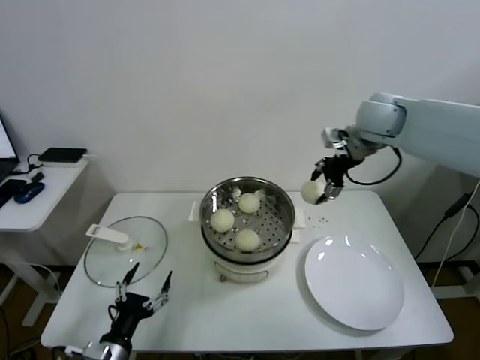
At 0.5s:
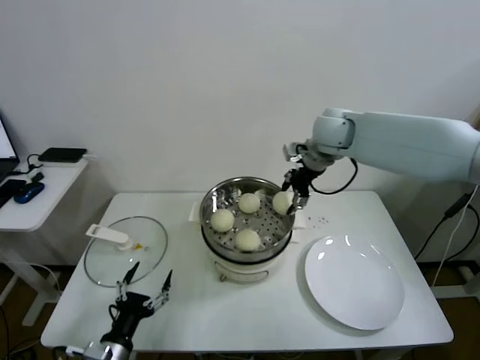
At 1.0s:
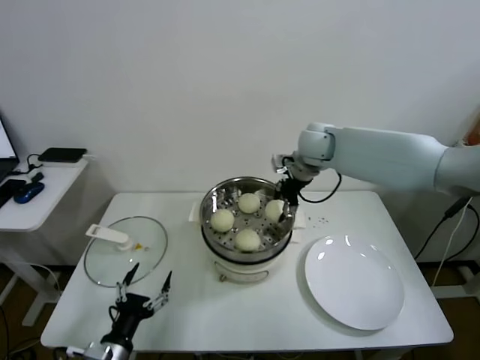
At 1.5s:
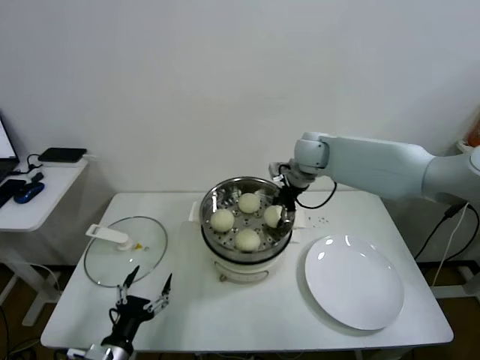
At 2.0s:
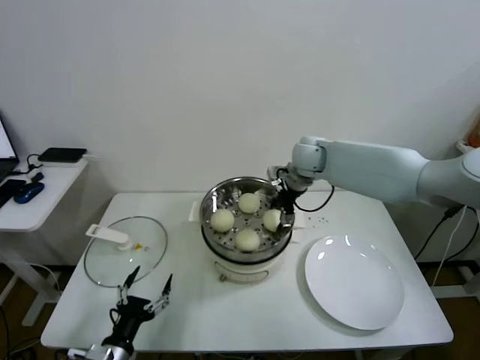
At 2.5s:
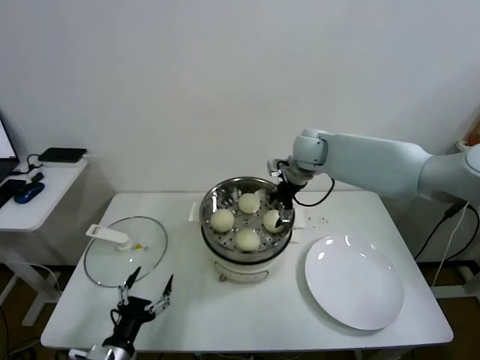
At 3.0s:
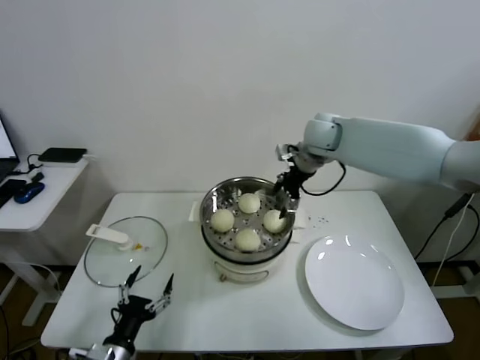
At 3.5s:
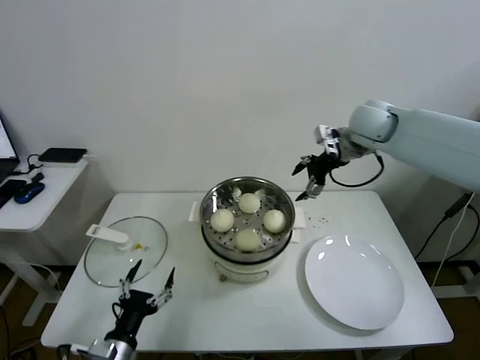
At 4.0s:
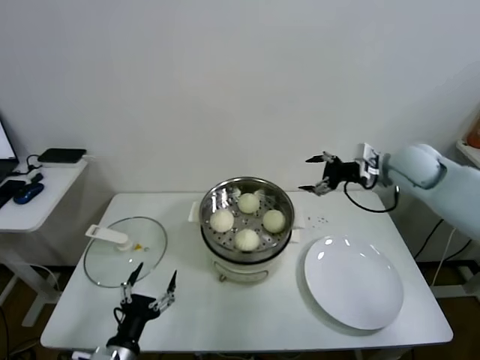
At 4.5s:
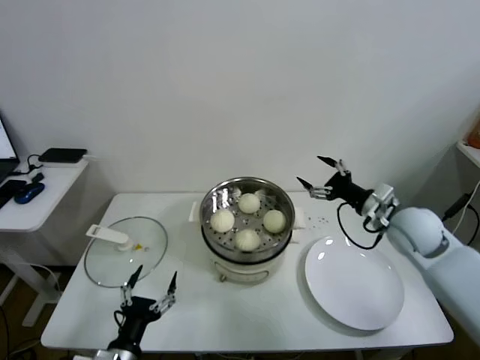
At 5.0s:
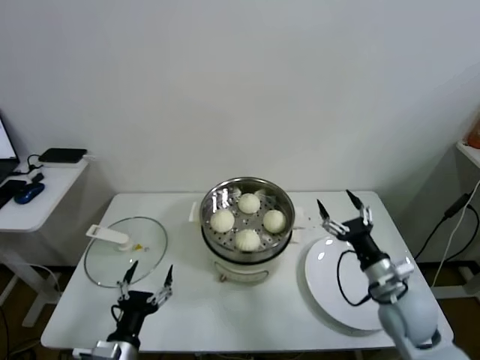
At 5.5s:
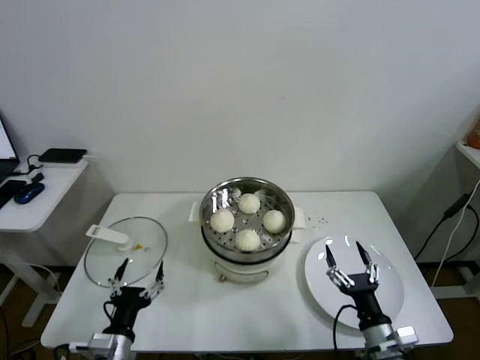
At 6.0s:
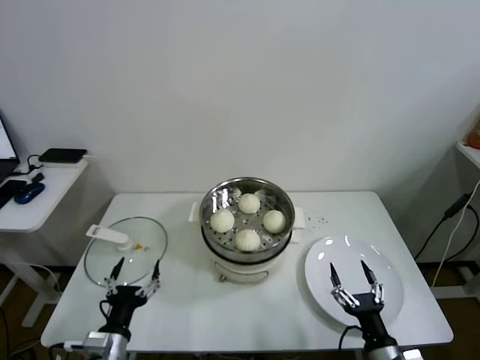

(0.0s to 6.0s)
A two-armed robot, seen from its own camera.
Task of the whole recording: take steamed baozi put them in steamer.
Step, 0.0s - 2.0s: Place the baozi on the steamer with right gripper.
0.0s - 2.0s: The right gripper shifts about 15 cm to the left and downward.
2.0s - 4.0s: The right gripper heads to the right and backward, covering some 20 cm, and opens.
4.0s - 6.0s: The right gripper moves backward and downward, about 50 cm.

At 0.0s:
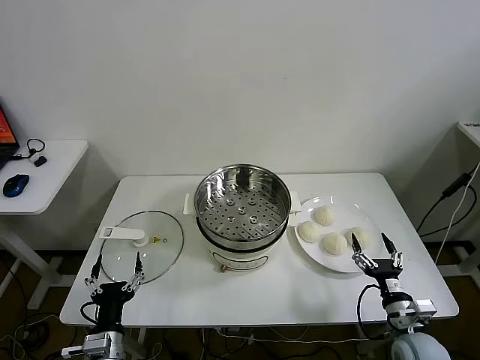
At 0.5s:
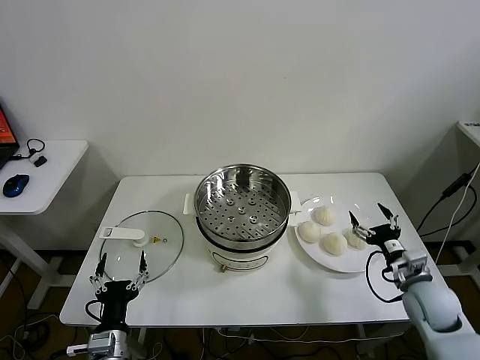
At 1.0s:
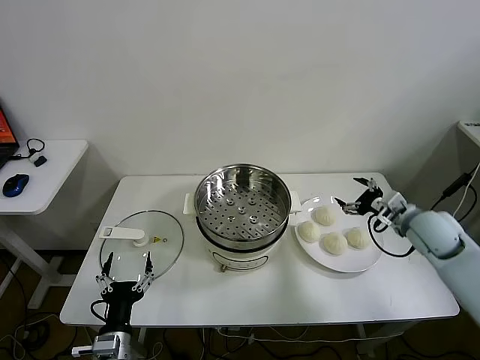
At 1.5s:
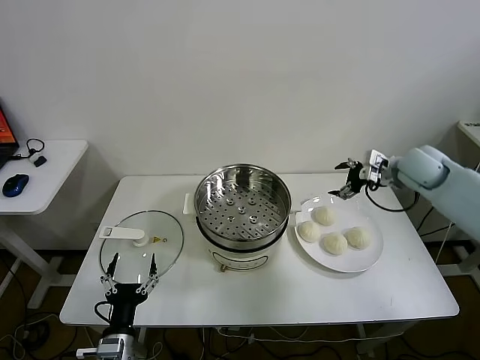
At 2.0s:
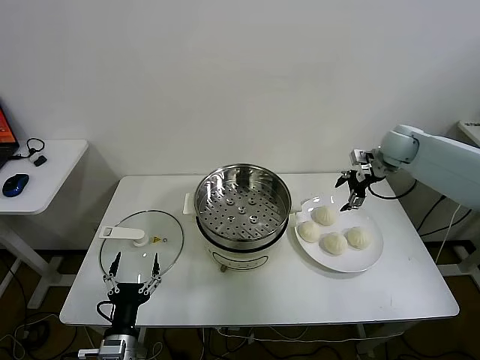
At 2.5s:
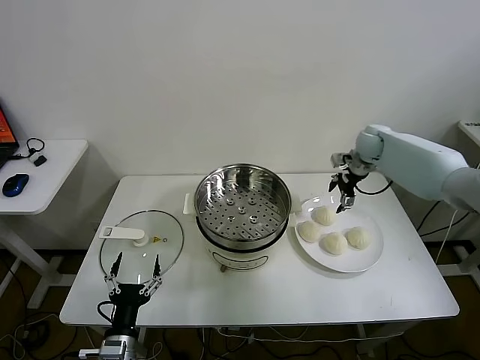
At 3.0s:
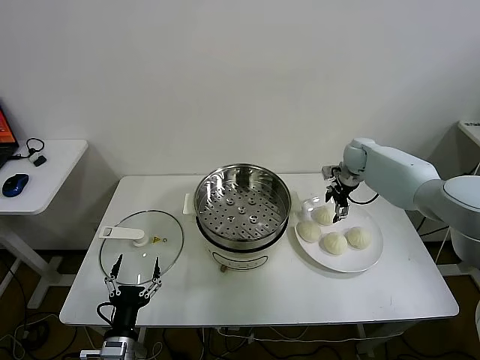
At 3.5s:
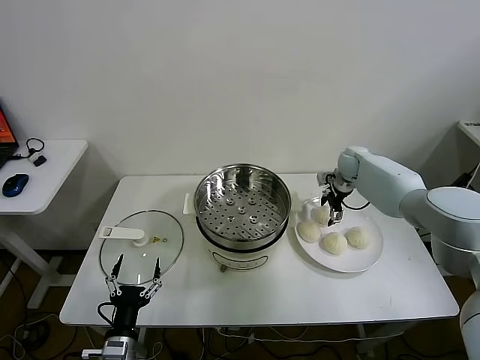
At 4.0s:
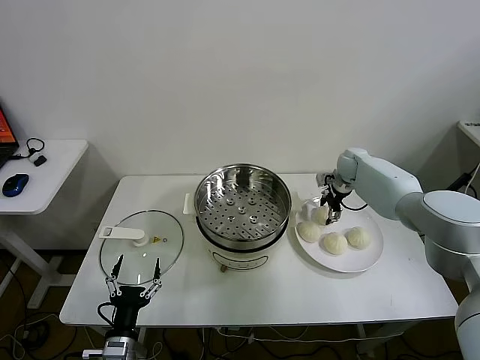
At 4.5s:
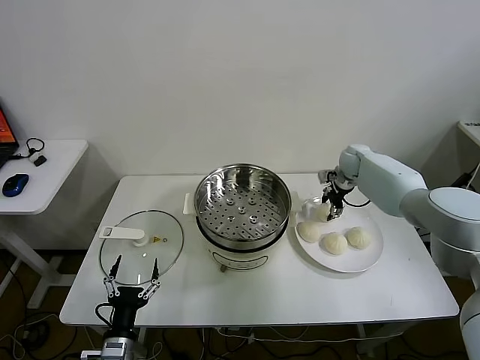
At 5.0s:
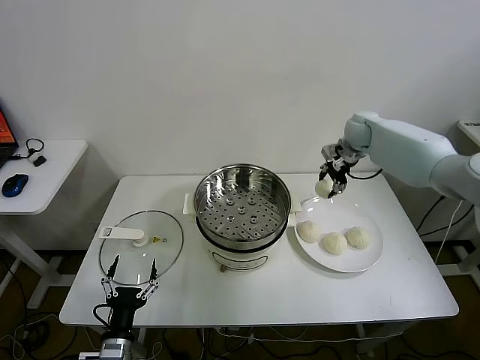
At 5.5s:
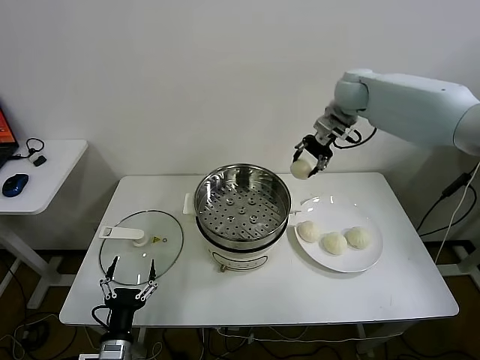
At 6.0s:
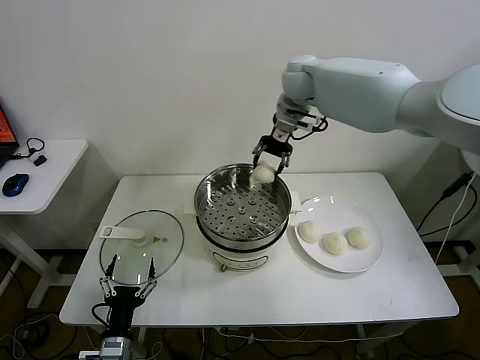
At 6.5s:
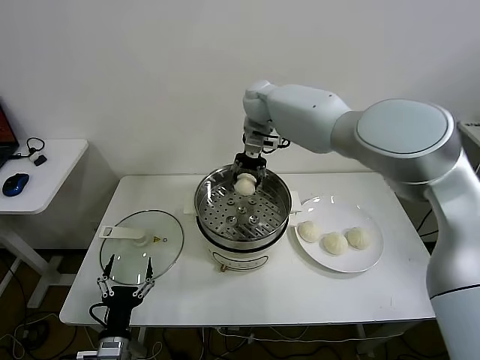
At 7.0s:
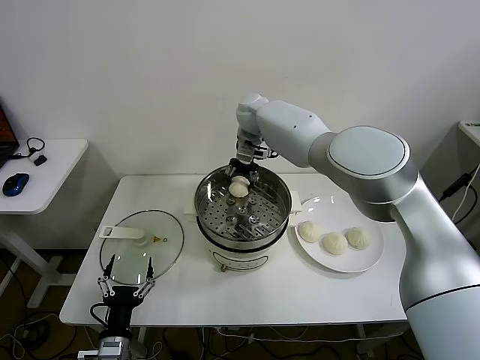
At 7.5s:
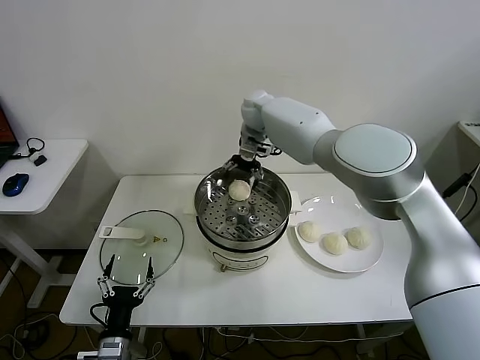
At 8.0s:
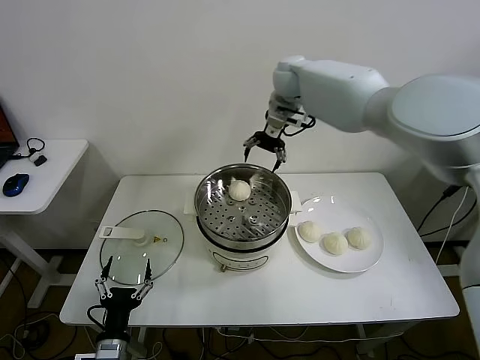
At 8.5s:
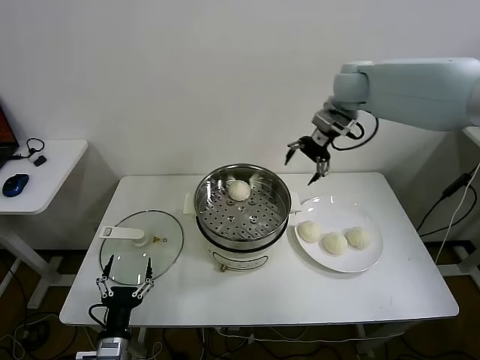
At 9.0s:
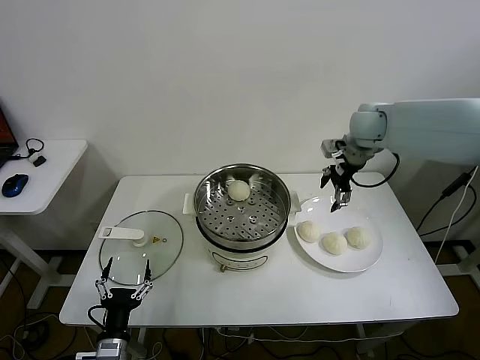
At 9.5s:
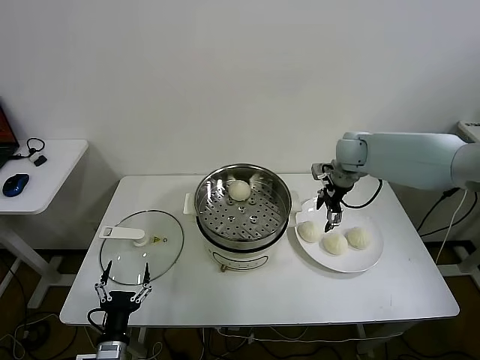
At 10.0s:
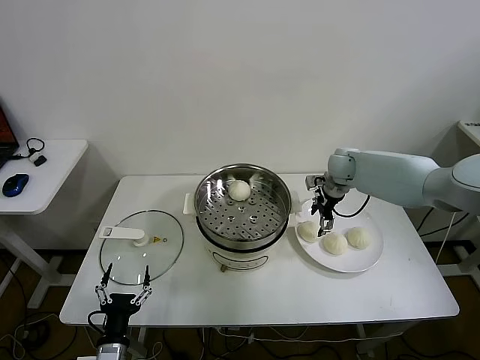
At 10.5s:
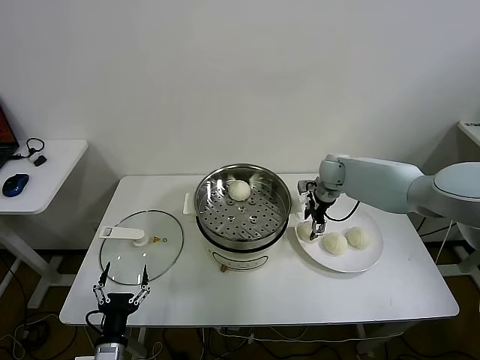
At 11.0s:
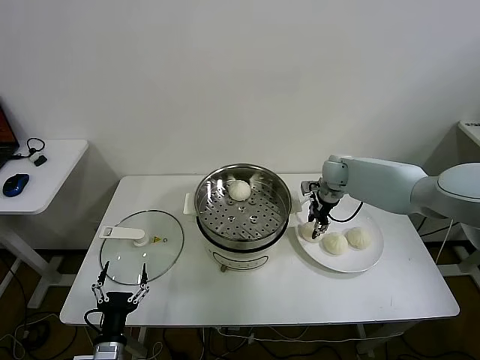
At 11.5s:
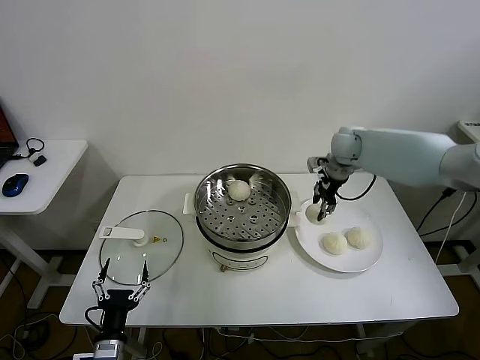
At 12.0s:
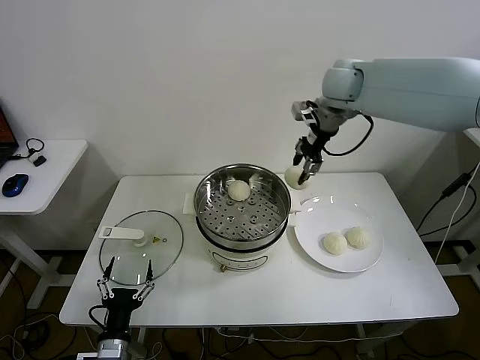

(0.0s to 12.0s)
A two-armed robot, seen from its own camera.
Task of the whole recording: take steamed baozi put them in steamer.
Step, 0.0s - 4.0s: Grasp the baozi in the plate with right gripper.
Step, 4.5s - 7.5s: Place the baozi on the steamer with right gripper.
Step, 8.0s - 10.5s: Grasp the baozi in the plate with right gripper.
2.0s - 4.0s: The right gripper is displaced downward and to the left by about 15 cm, and closes up.
4.0s - 6.0s: The right gripper heads upward and to the left, covering about 35 cm.
6.0s - 8.0s: The right gripper travels downward and back again, about 10 cm each way, and opens its fingers.
8.0s - 10.0s: The right gripper travels downward and to the right by some 25 cm.
10.0s - 12.0s: The right gripper moves upward, approximately 25 cm, and closes its fingers.

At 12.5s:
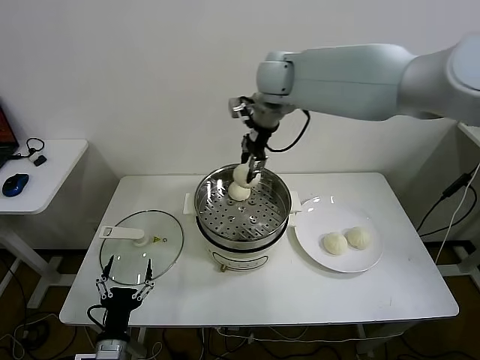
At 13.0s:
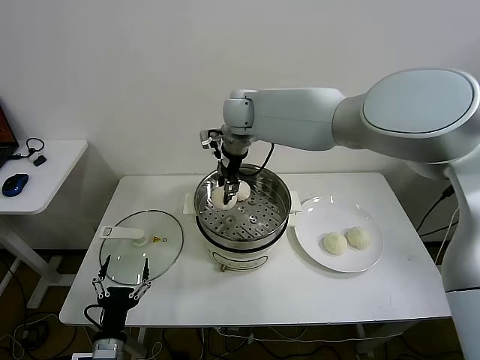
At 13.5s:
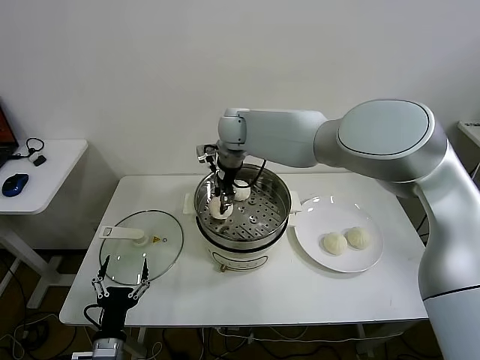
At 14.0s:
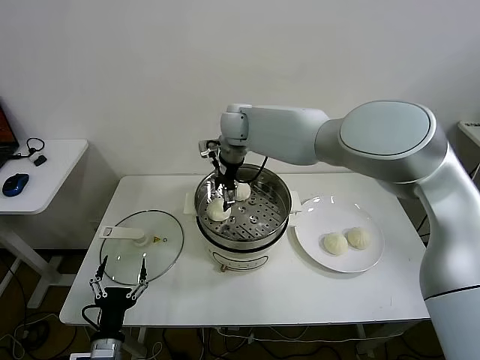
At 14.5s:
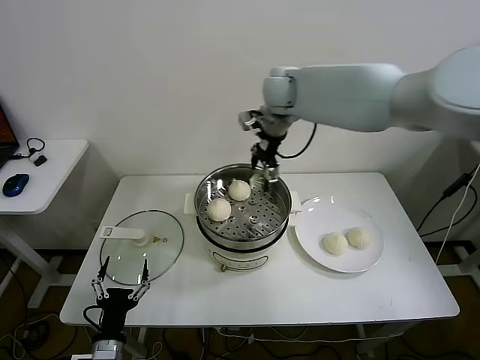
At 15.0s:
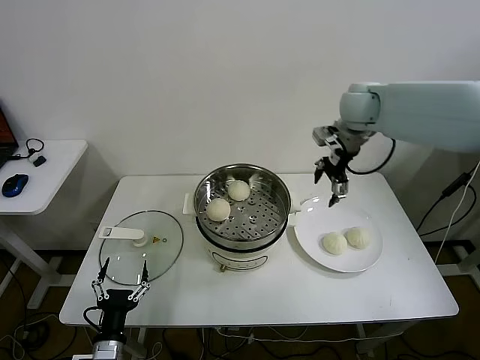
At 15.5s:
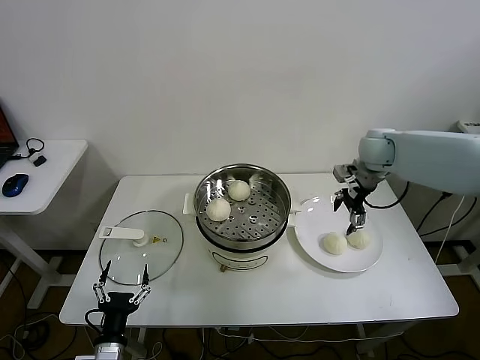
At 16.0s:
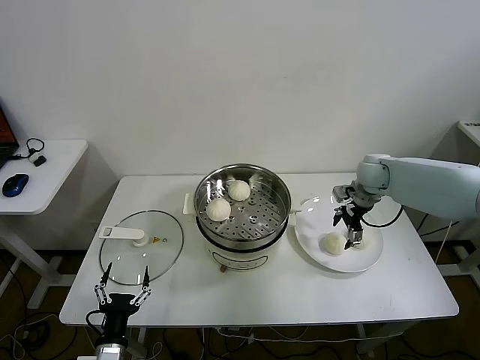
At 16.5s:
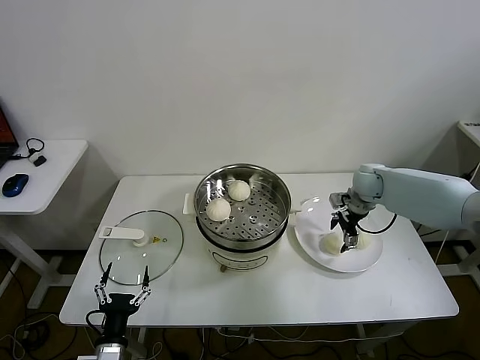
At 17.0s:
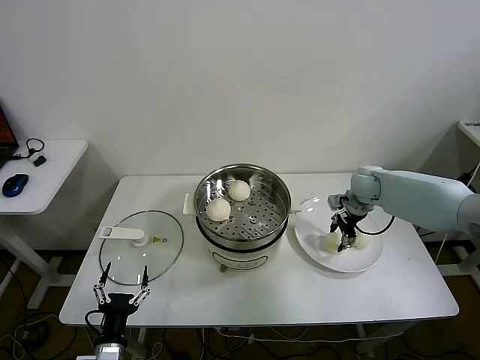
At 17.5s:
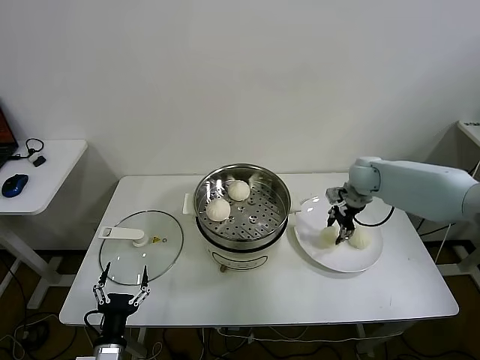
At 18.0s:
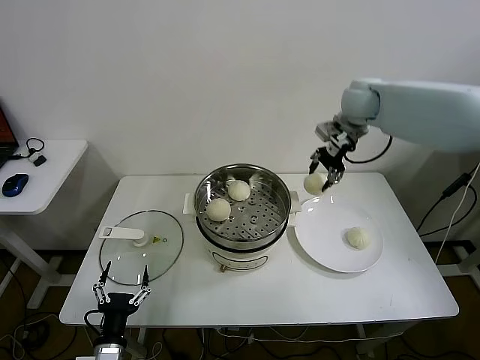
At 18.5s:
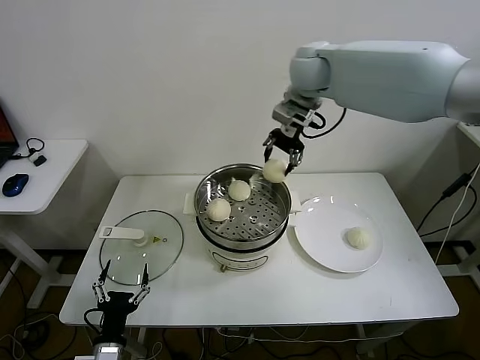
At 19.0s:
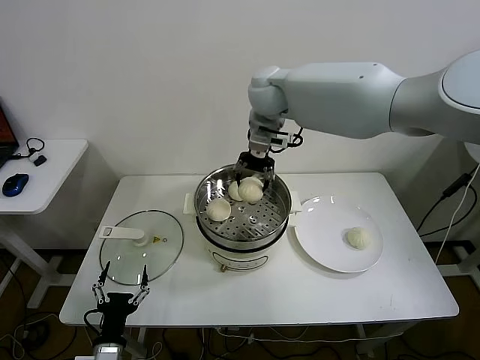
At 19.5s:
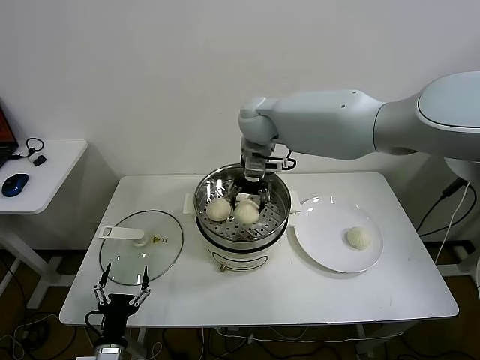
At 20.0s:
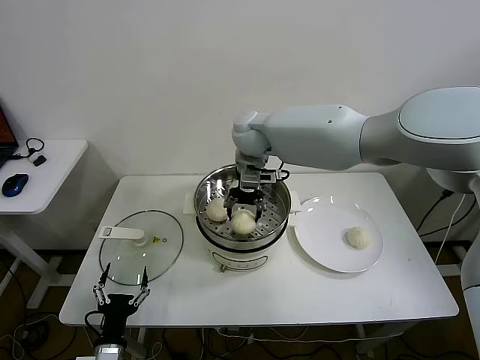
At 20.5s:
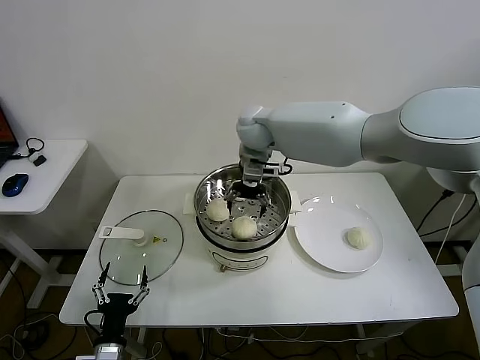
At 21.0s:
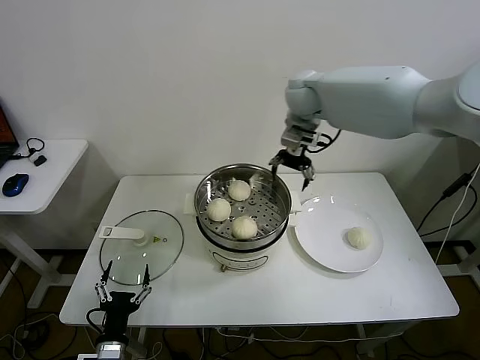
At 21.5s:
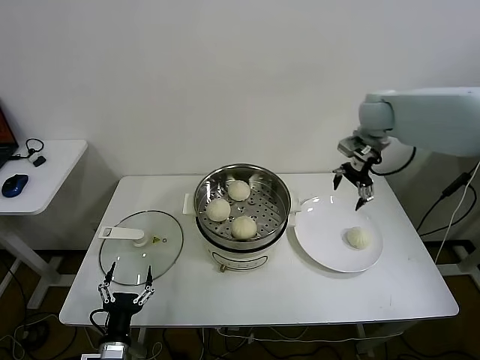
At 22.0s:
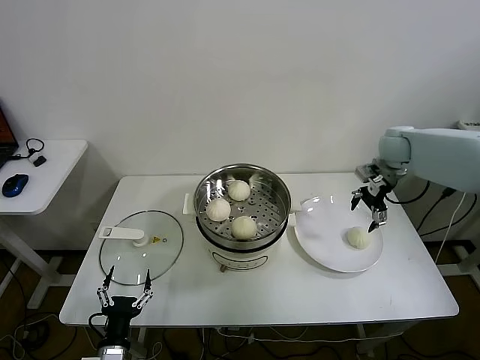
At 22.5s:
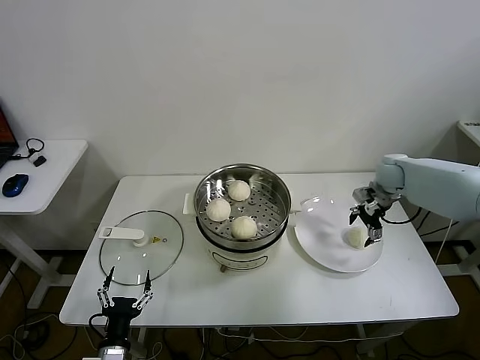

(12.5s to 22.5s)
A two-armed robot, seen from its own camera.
Task of the whole recording: take steamed baozi put them in steamer.
Step, 12.5s - 14.0s: Place the baozi on the steamer with right gripper.
Step, 14.5s - 17.0s: Grasp the baozi in the plate with right gripper.
Step, 17.5s - 20.0s: Place the baozi on the steamer with right gripper.
12.5s - 14.5s: The right gripper moves some 10 cm downward and comes back, and opens up.
14.5s - 16.5s: The right gripper shifts roughly 35 cm downward and to the right.
16.5s - 18.5s: The right gripper travels upward and to the left by roughly 35 cm, and closes.
18.5s - 20.5s: The right gripper travels downward and to the left by about 15 cm, and opens its fingers.
20.5s - 22.5s: The right gripper goes approximately 35 cm to the right.
